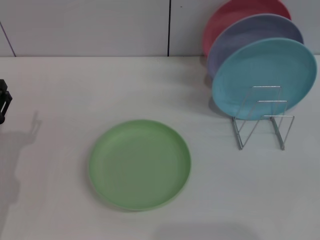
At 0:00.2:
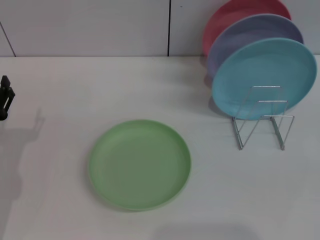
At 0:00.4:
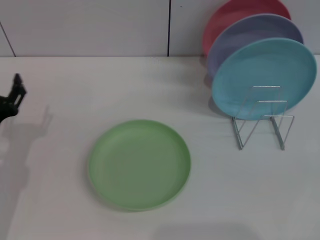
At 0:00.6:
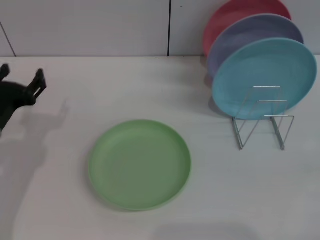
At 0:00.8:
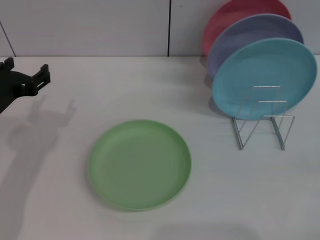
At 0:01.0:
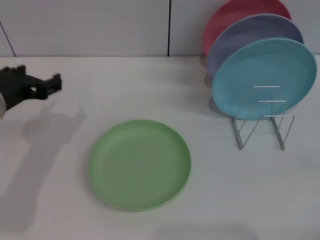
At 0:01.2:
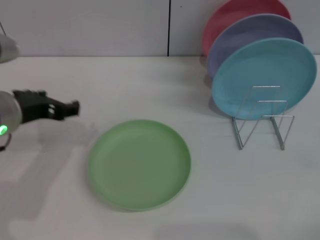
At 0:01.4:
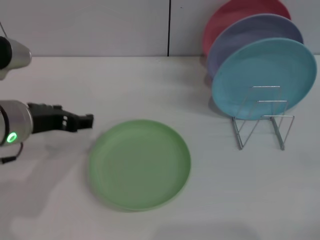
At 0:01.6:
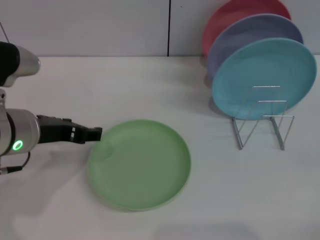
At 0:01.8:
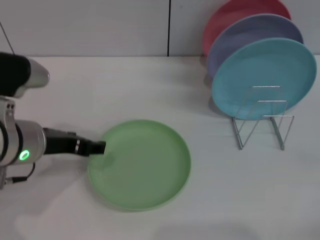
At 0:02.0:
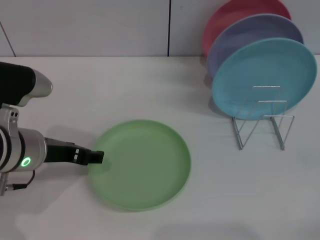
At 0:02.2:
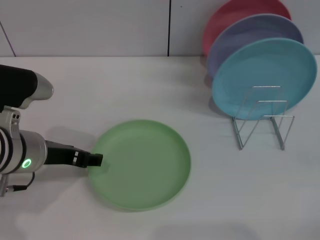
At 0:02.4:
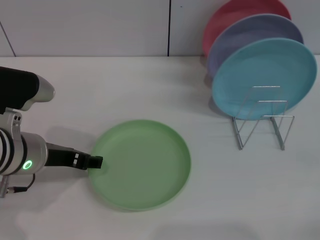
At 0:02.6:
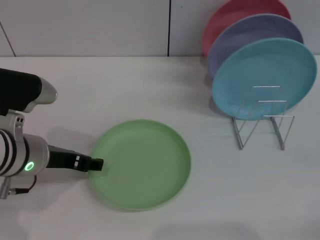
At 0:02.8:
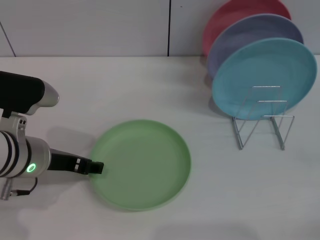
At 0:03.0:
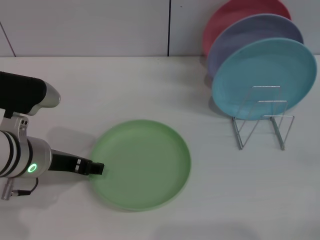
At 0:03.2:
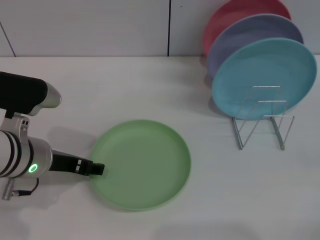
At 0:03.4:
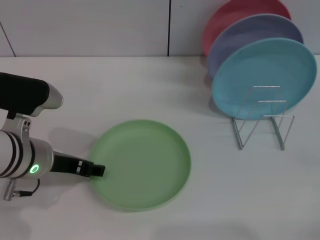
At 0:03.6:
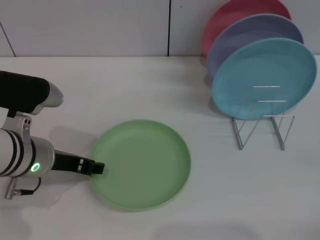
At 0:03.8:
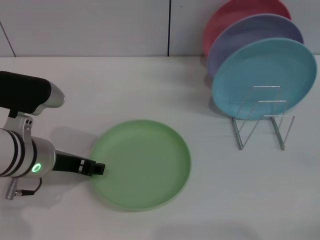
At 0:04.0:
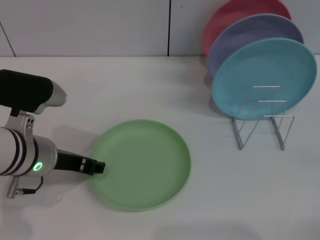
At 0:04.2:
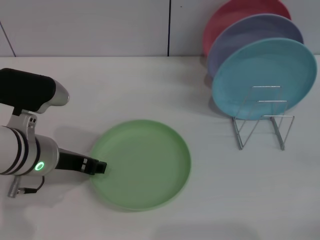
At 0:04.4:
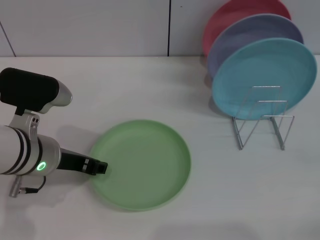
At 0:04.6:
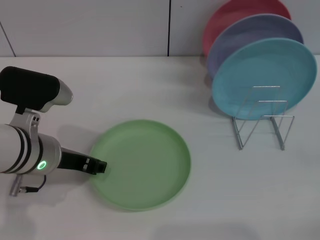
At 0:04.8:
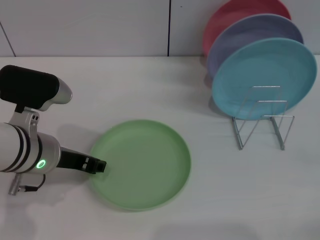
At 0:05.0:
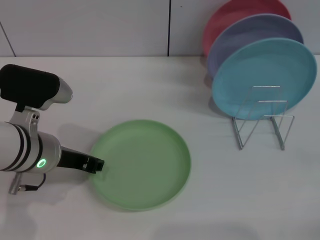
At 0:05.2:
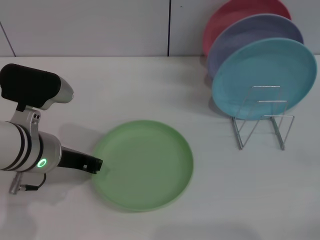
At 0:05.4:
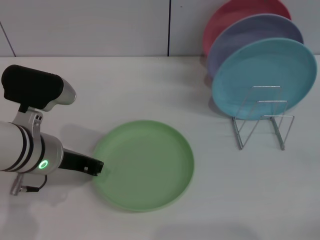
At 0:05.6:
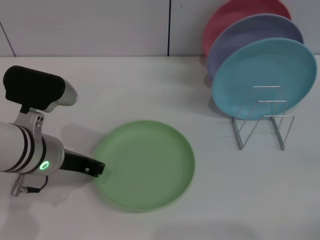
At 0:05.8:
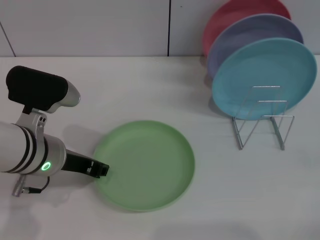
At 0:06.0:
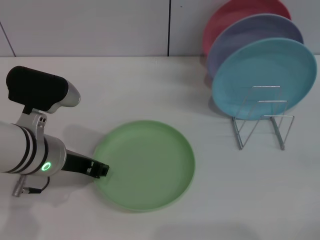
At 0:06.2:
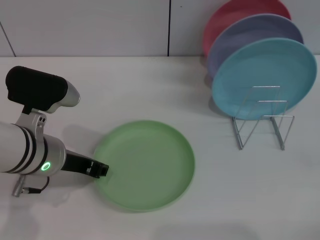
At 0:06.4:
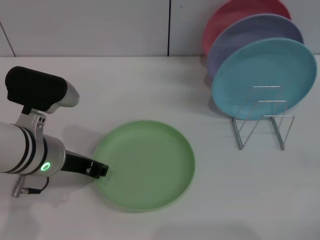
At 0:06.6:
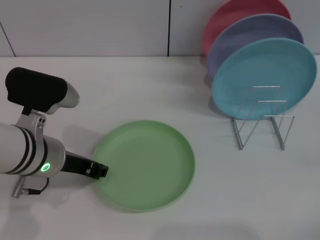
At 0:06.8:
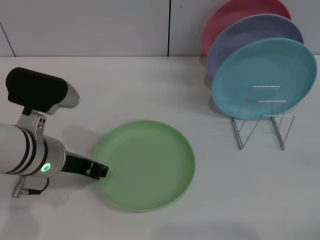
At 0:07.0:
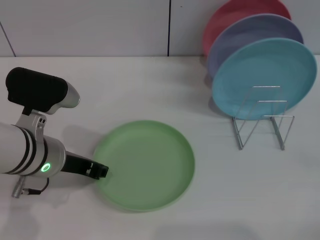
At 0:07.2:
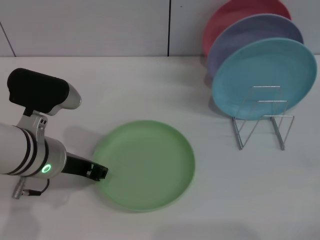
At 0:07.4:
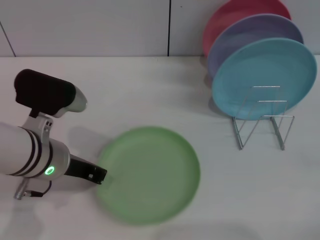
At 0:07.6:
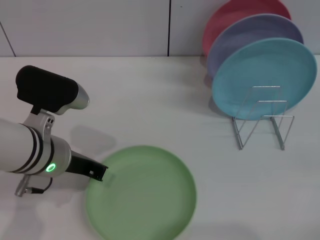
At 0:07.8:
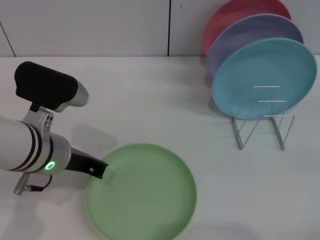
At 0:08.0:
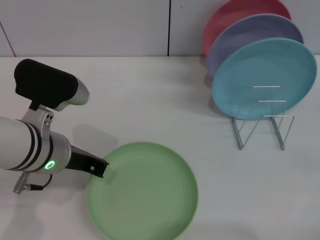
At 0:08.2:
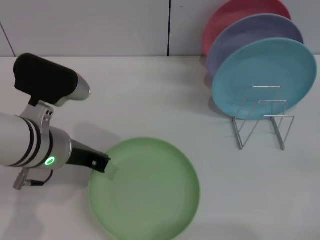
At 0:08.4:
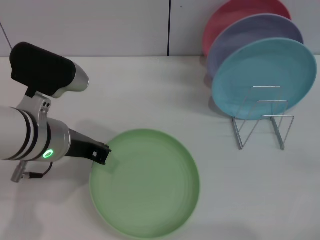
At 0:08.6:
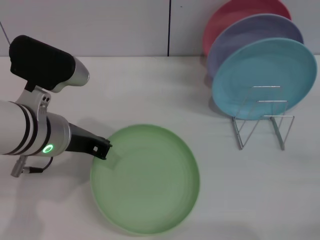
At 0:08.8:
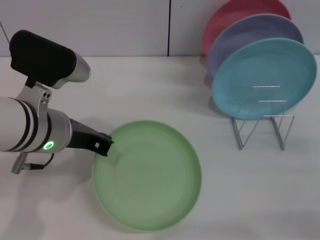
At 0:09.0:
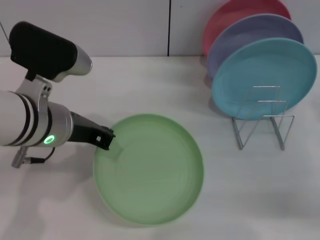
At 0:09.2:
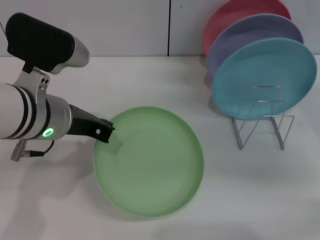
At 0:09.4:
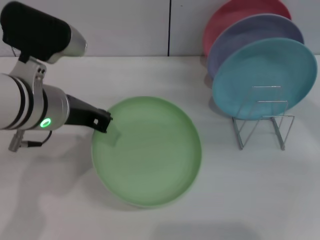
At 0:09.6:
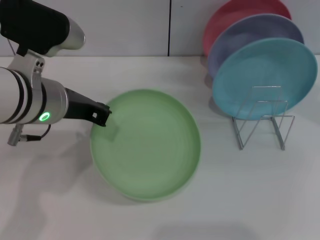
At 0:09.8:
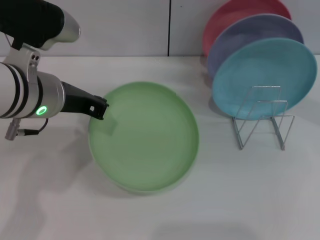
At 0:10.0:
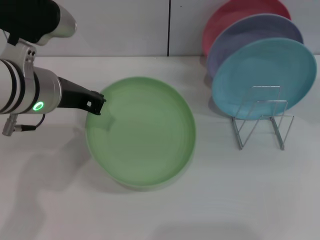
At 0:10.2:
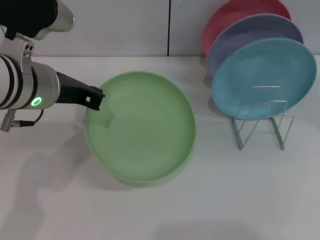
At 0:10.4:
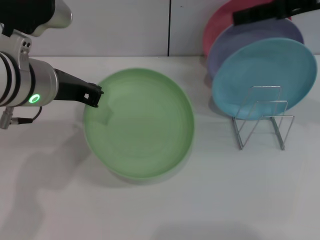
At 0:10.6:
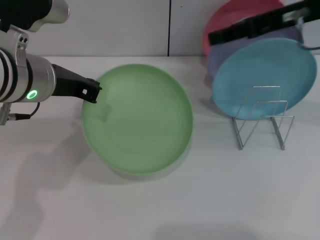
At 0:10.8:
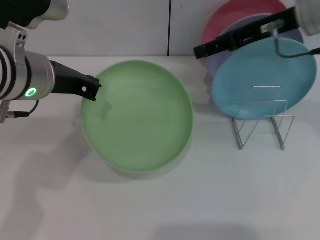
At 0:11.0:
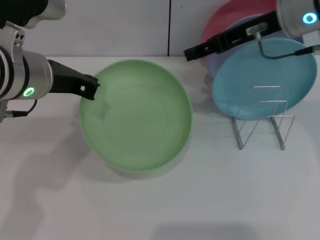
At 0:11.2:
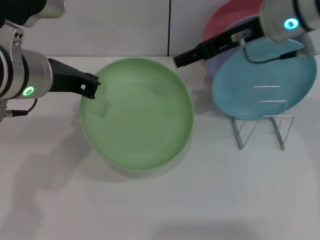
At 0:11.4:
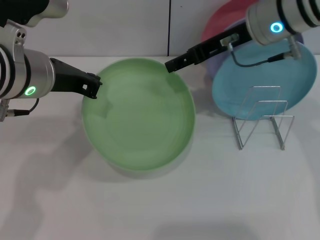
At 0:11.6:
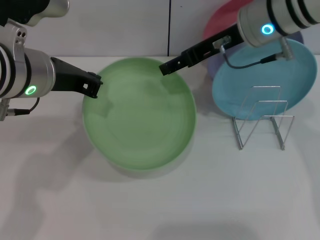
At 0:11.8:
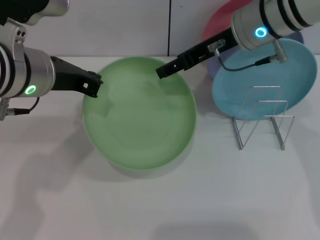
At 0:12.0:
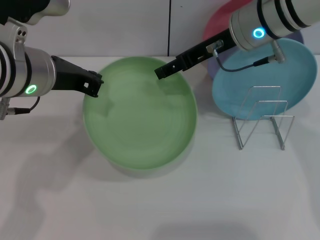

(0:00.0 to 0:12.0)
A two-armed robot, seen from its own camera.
Task of the whole recording: Grip the plate with one hand, pass it to the other, then set it on the shelf.
Step, 0:00.0 - 0:09.4: Pick up the plate with the left gripper.
0:00.0 - 0:01.6: The left gripper moves upward and to the right, about 15 cm.
0:01.6 - 0:03.0: There are only small adjustments of the grippers.
0:03.0 - 0:04.4: The two grippers keep their place.
0:04.4 - 0:06.0: Neither gripper changes place.
0:06.0 - 0:07.6: Both grippers stay about where they are.
0:07.6 - 0:09.0: The right gripper is displaced forward, to the left and upward by some 10 cm; the left gripper travels upward by roughly 5 cm.
0:09.0 - 0:10.4: The right gripper is displaced upward and forward by approximately 20 cm.
0:10.4 - 0:12.0: The right gripper is displaced to the left and downward by about 15 cm.

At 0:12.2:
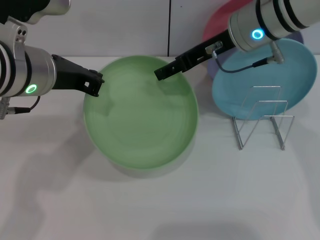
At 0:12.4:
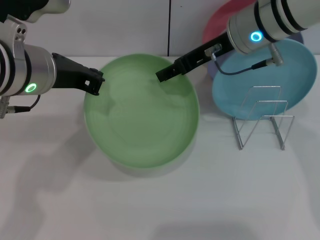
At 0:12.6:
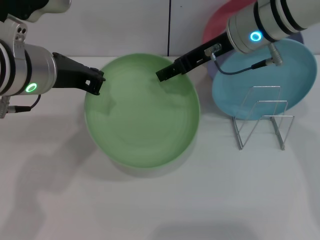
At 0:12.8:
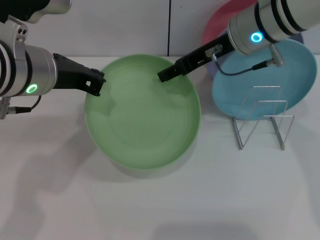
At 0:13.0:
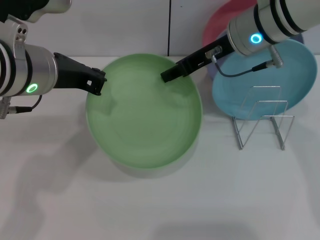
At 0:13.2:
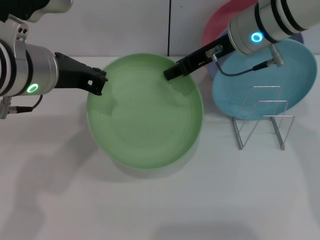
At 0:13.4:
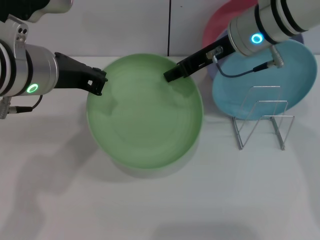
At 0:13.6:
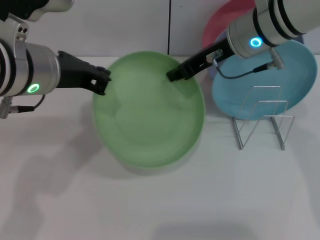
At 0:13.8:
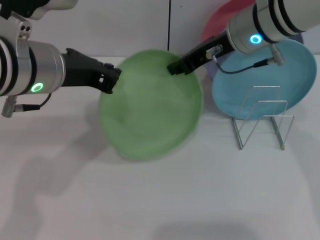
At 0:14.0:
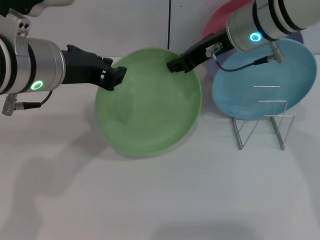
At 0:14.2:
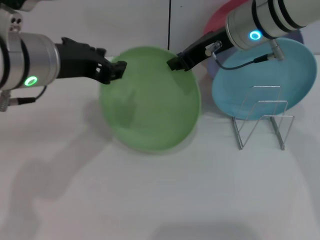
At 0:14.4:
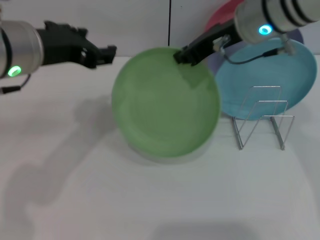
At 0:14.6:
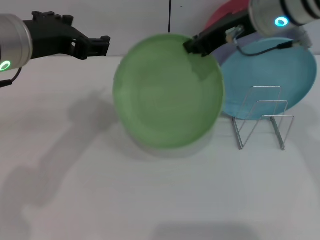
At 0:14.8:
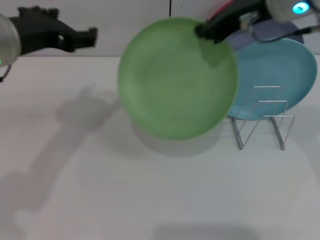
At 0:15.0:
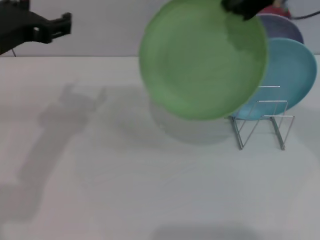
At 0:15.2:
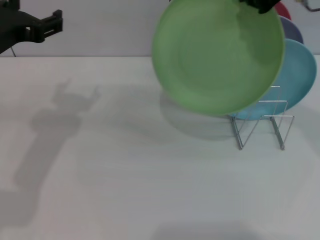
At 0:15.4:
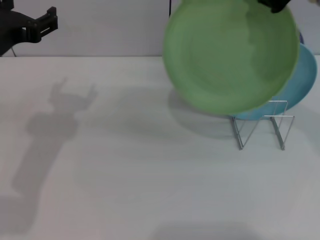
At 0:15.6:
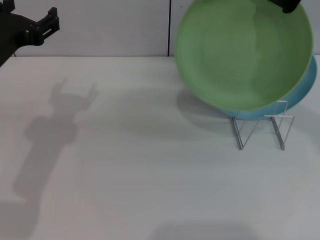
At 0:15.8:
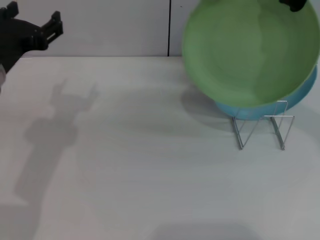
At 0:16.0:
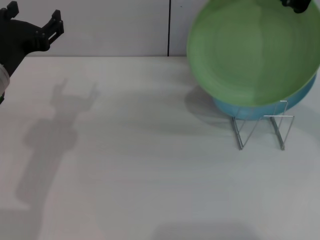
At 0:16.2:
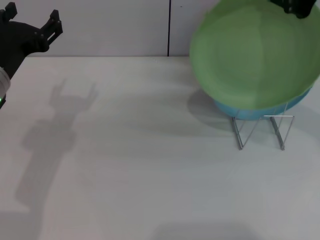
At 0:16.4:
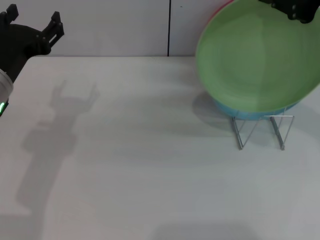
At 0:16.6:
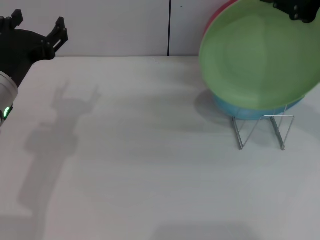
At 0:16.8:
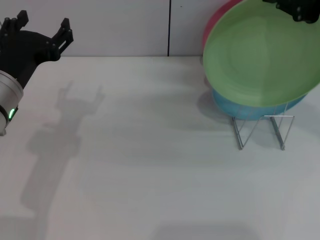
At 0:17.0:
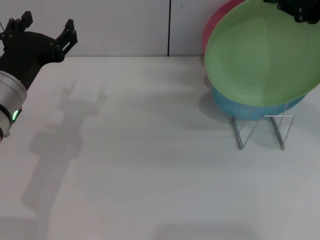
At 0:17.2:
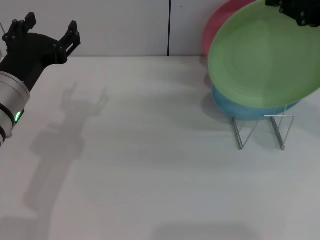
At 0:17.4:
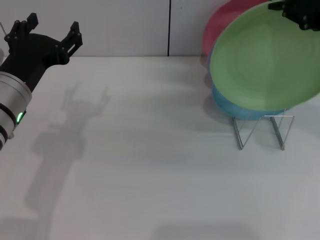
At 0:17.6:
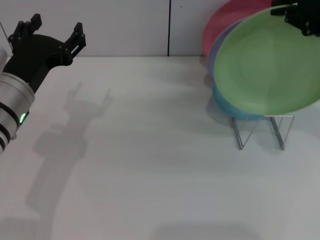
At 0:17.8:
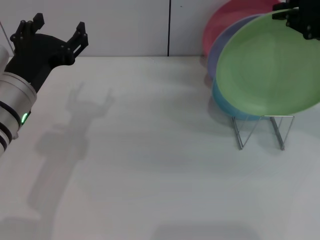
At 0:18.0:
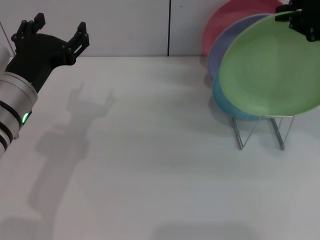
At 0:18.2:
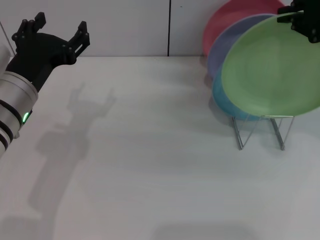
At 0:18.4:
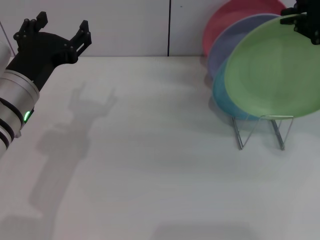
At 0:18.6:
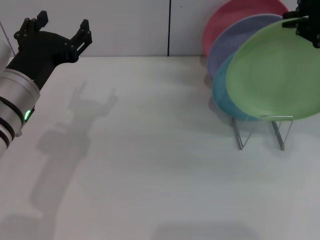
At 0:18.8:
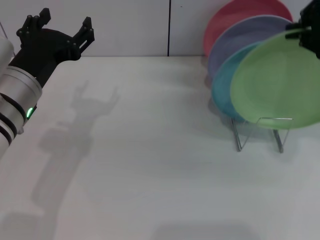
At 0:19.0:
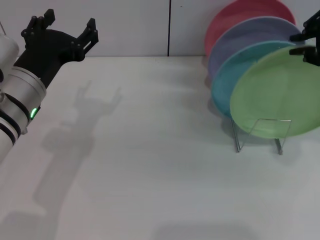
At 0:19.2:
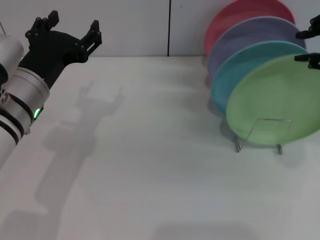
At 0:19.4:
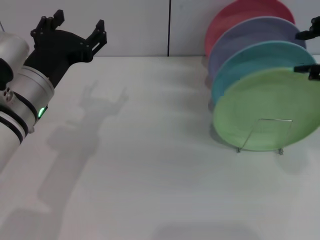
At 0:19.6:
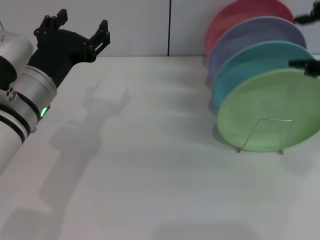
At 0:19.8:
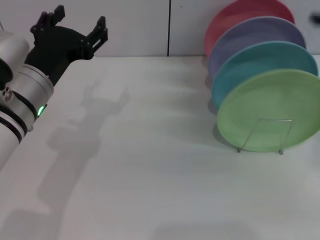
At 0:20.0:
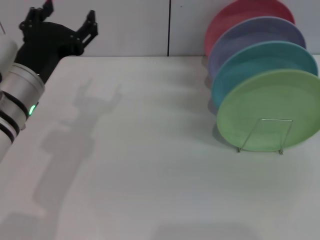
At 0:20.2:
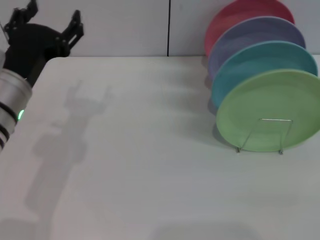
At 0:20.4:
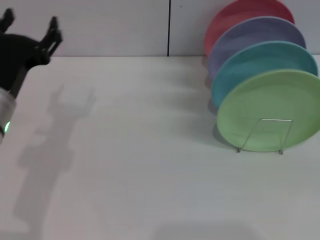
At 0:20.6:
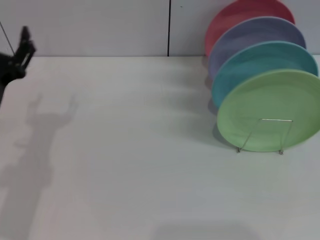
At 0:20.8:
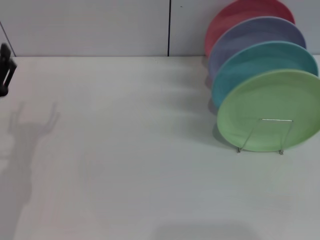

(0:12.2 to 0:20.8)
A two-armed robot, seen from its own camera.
Task of the whole recording: Grip the plate with one hand, pass it to the other, then set it on the shelf.
Step, 0:12.2 - 0:15.6: Pass the plate from the left gripper to the right gripper.
Step, 0:15.8 - 0:19.2: Place the plate on the shelf with the right gripper.
0:12.2 - 0:13.6: The right gripper closes up.
0:13.6 - 0:15.0: The right gripper is displaced upward and to the right by roughly 10 cm; the left gripper shifts roughly 5 cm to the left, and opens.
0:15.0 - 0:16.6: The left gripper moves downward, about 10 cm, while the right gripper ends up some 5 cm from where it was.
0:16.6 - 0:18.0: There are only small adjustments of the grippers.
0:18.0 - 0:19.4: The right gripper opens up.
0:19.4 - 0:20.8: The left gripper heads to the left and downward, covering some 10 cm, while the right gripper goes roughly 35 cm downward, to the right and backward, and opens its fingers.
